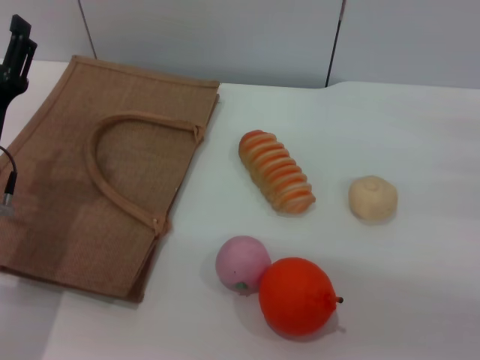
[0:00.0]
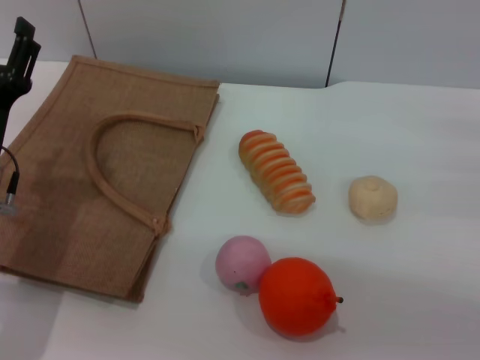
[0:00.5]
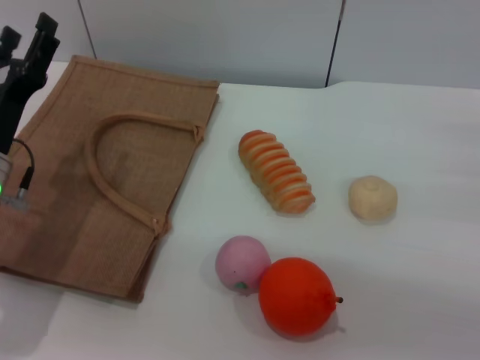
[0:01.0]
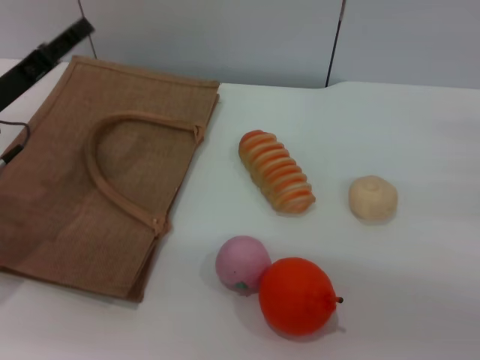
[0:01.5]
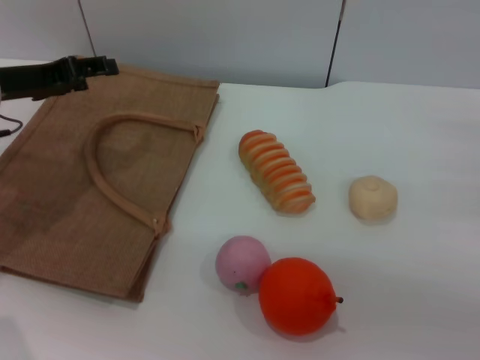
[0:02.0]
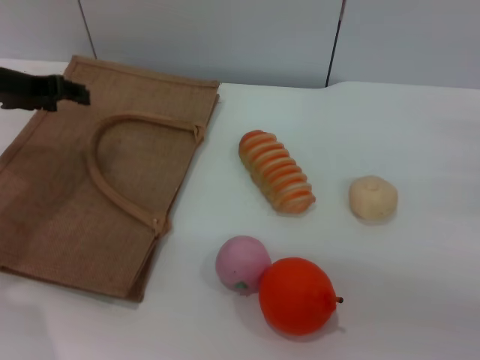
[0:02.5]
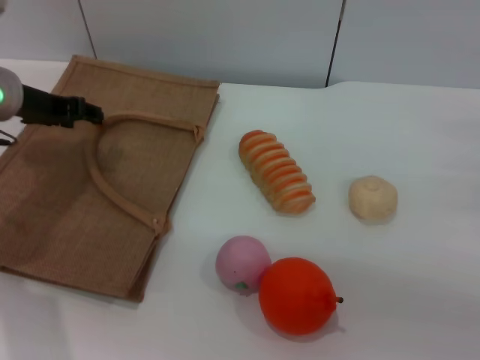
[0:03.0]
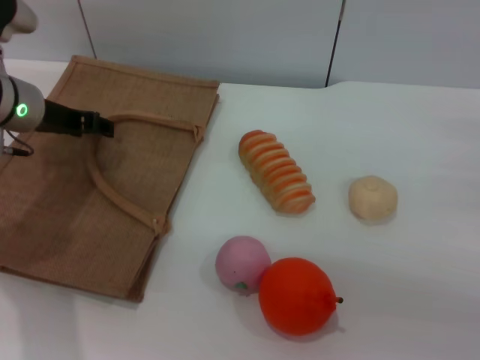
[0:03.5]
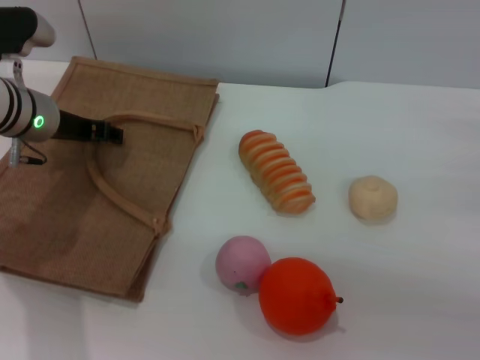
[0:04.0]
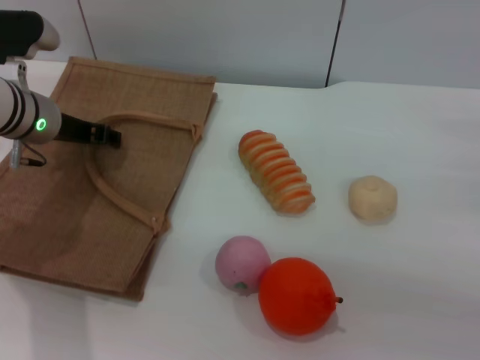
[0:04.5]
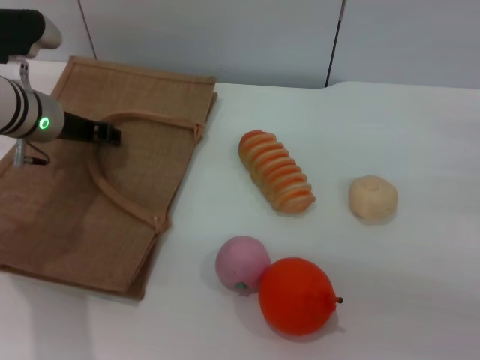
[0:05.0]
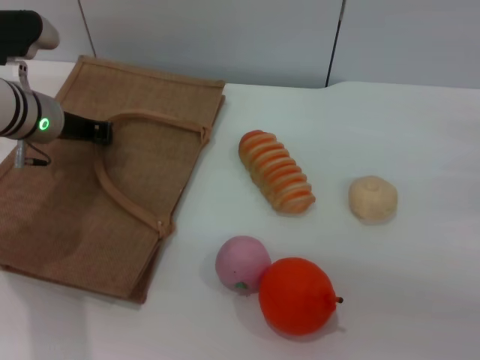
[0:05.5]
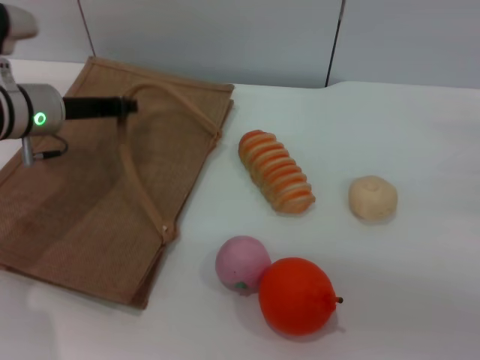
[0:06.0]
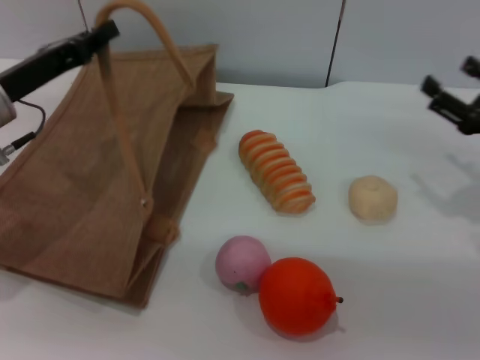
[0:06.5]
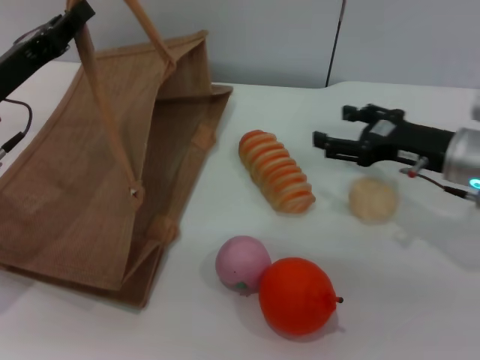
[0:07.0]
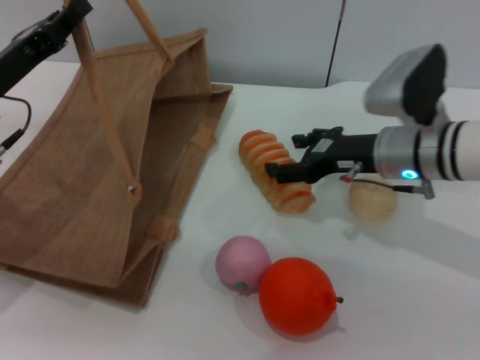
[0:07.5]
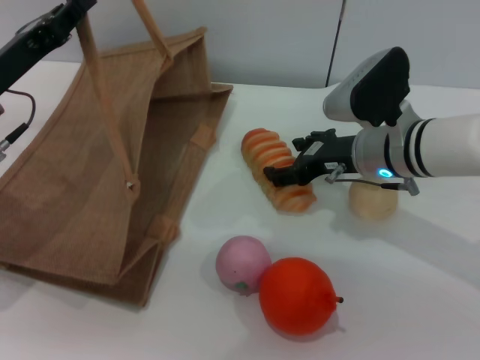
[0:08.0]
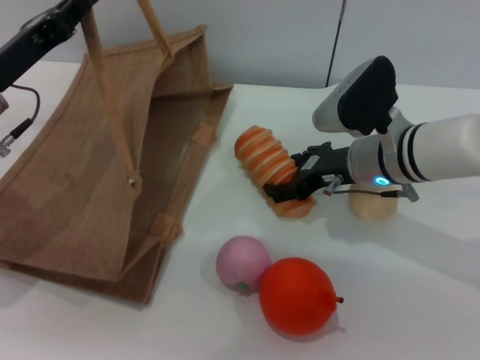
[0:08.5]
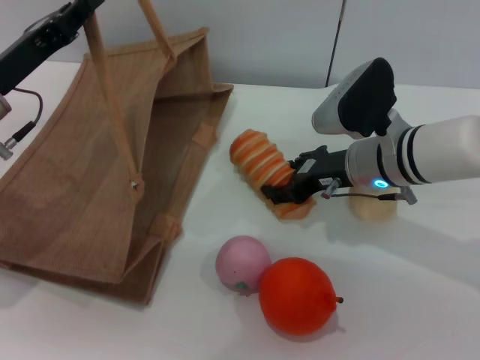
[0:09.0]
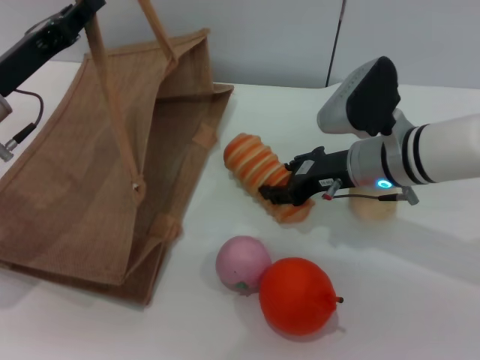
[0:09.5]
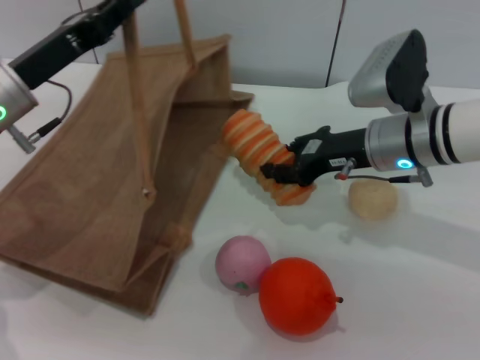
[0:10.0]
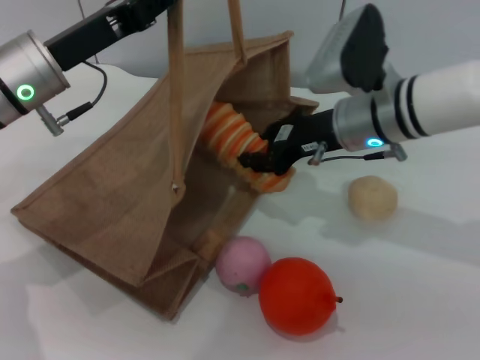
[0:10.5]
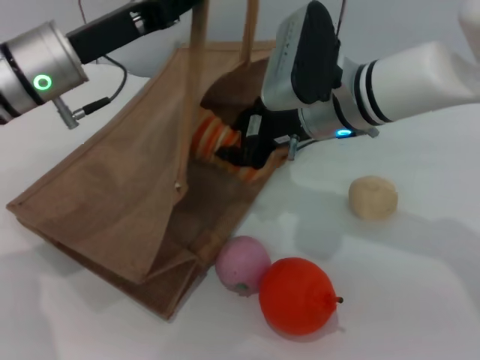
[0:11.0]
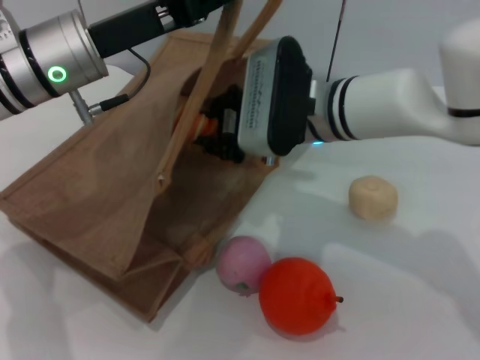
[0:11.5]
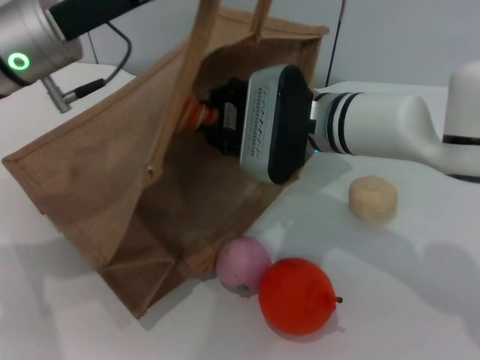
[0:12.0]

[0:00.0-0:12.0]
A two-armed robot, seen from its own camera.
Task of the whole recording: pick up the bread and egg yolk pastry from the table and place it in the brown handbag.
Step, 0:00.0 to 0:06.5: Lift the woven bag with the left gripper to open it.
Step, 0:07.0 to 0:09.5: Pick up the bread with the right gripper.
0:00.0 to 0:02.0: The left gripper travels forward and upward by roughly 15 cm.
0:02.0 to 0:04.0: The left gripper shifts by about 5 cm.
0:04.0 to 0:06.0: The left gripper closes its fingers.
0:06.0 to 0:08.0: The left gripper shifts about 5 cm backward. The right gripper goes about 25 cm to the left and forward.
0:08.0 to 0:10.0: The right gripper closes its fingers.
0:10.0 to 0:12.0: The left gripper travels upward and to the right by about 10 cm; the right gripper goes about 10 cm to the left.

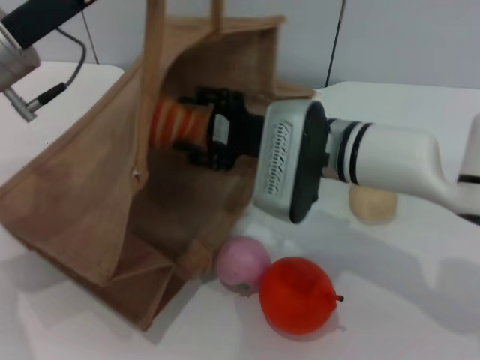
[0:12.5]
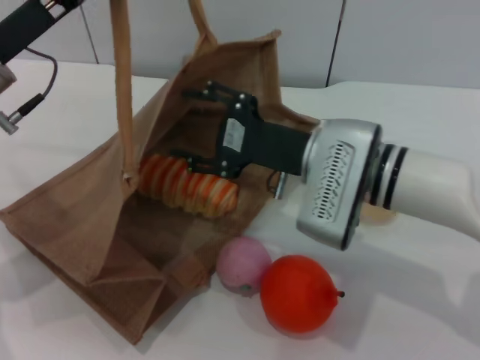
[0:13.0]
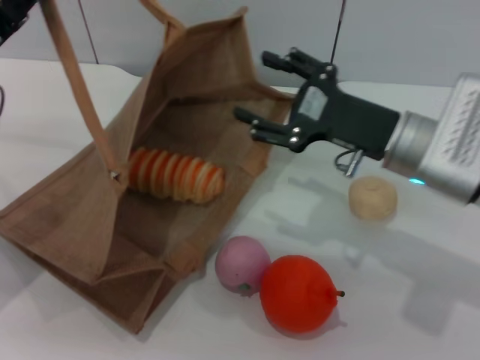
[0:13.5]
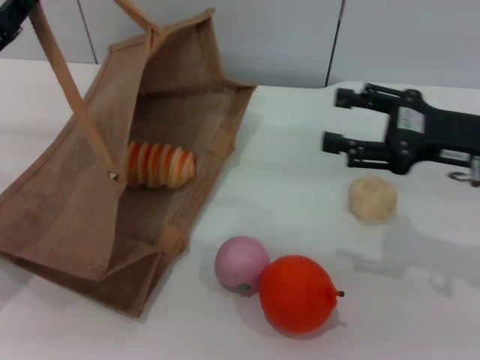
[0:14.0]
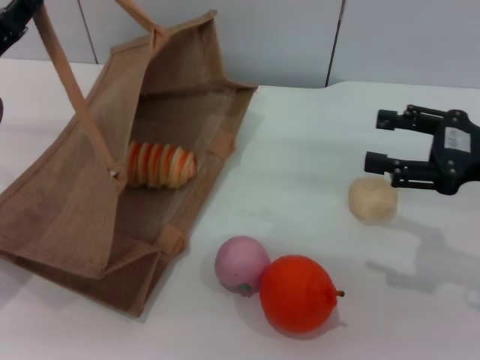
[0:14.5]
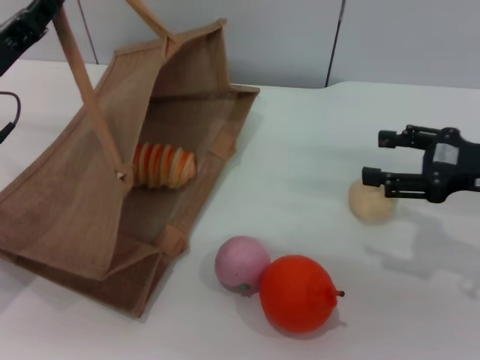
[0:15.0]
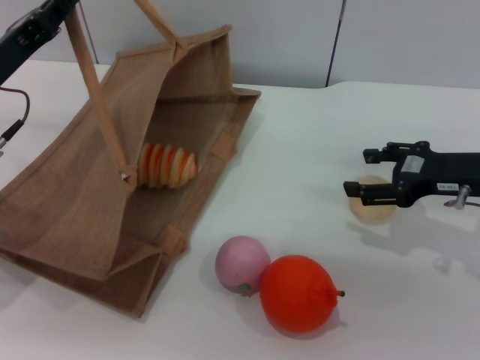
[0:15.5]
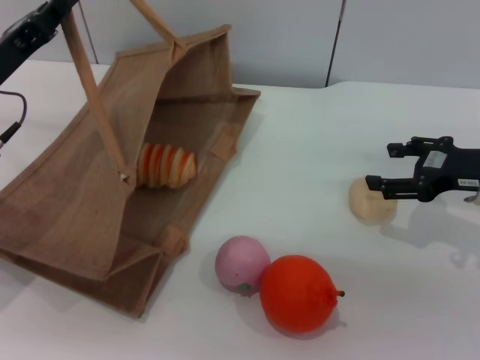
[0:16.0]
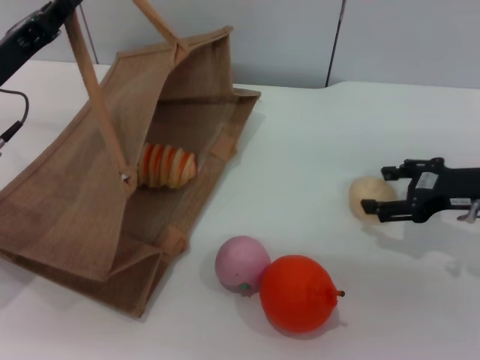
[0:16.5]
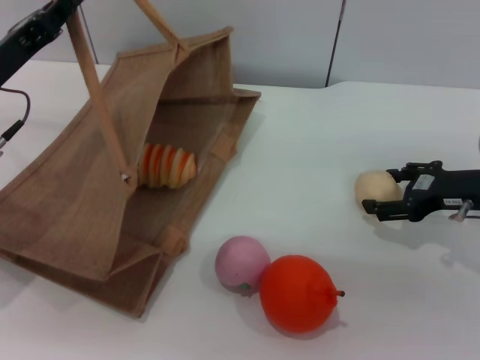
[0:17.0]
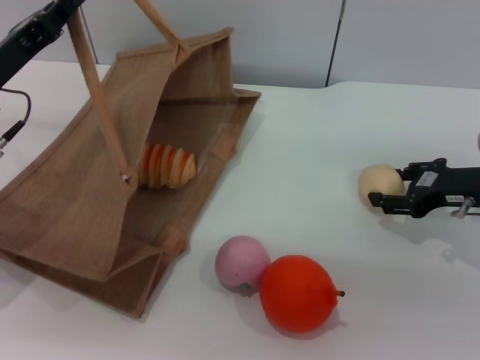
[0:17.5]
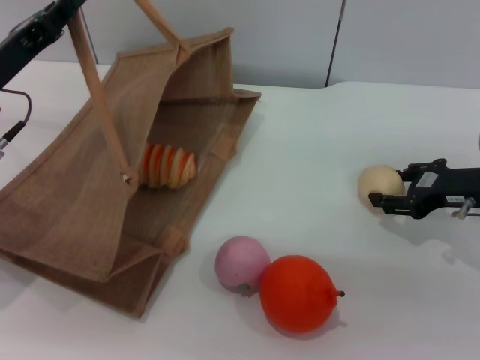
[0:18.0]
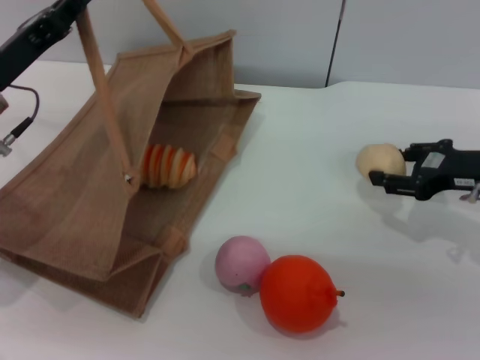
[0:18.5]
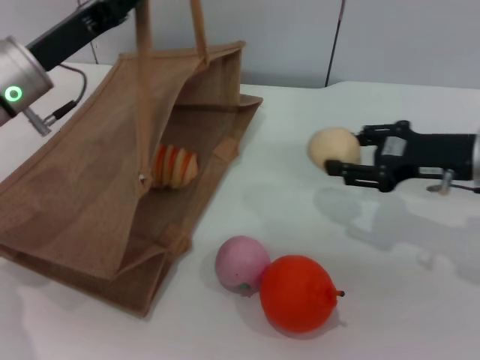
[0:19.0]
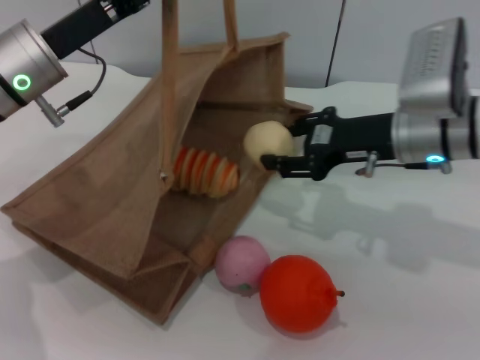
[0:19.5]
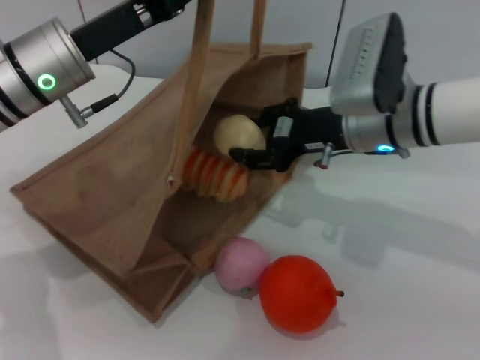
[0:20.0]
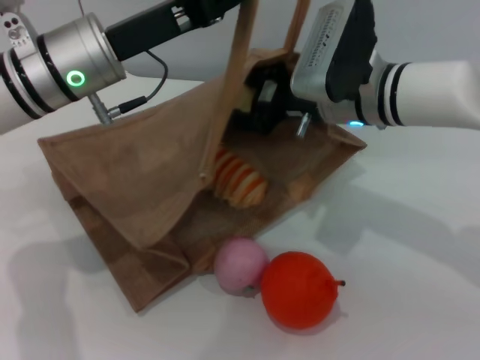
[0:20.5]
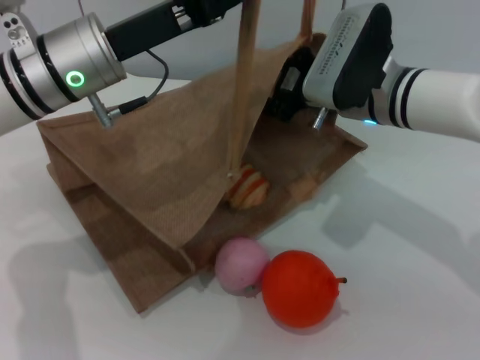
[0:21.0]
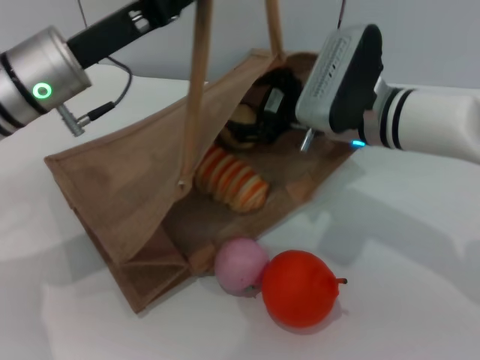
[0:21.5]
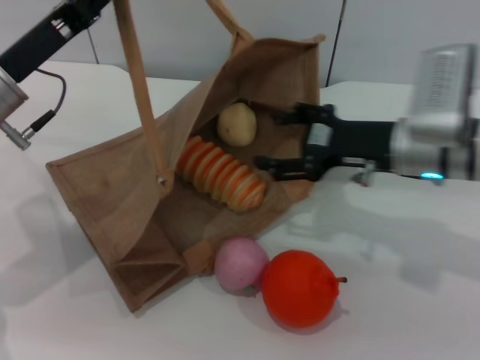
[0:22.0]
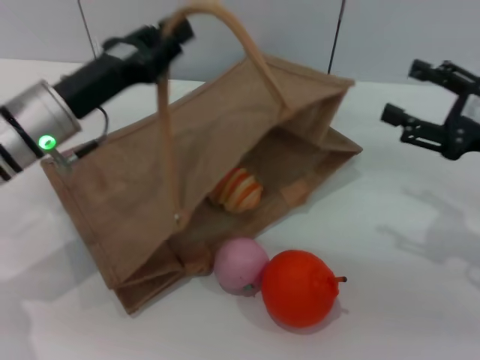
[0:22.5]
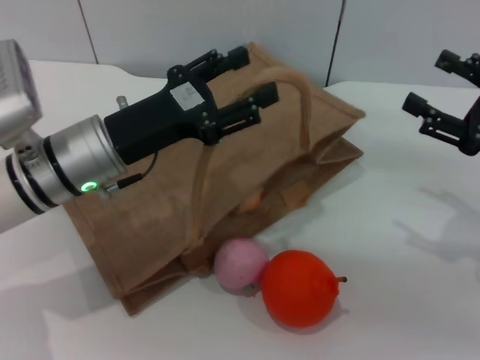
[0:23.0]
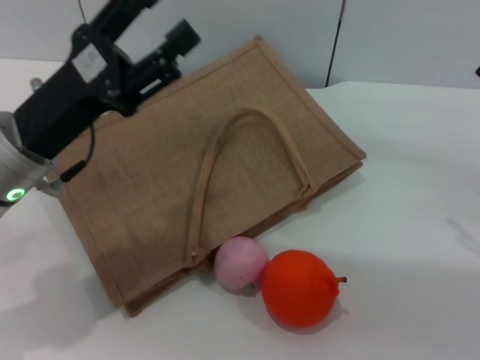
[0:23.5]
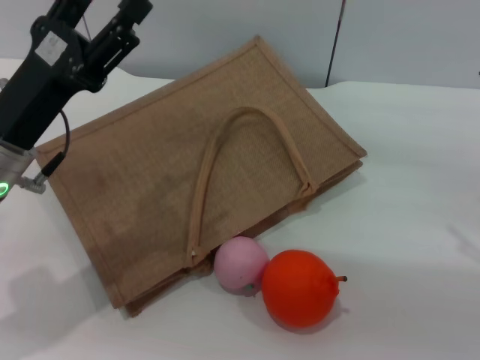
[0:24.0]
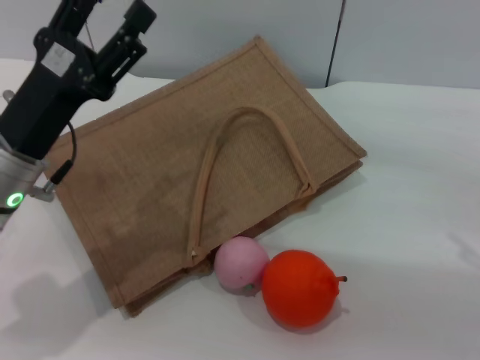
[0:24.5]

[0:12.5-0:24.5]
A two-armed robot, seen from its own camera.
Task of the whole recording: pick up the bread and egg yolk pastry from the table and place it in the brown handbag.
Step, 0:13.0 to 0:18.5: Pick up the egg yolk pastry with the right gripper.
Step, 0:19.0 to 0:21.5: Place the egg yolk pastry into the woven bag with the right gripper.
Step, 0:22.0 to 0:23.0: Lower the woven bag with the left gripper to close it.
0:12.5 to 0:14.5: The right gripper is displaced to the right by roughly 25 cm, and opens. The left gripper goes some 10 cm to the left and downward.
0:14.5 to 0:16.5: The right gripper heads downward, covering about 5 cm.
0:16.5 to 0:18.5: The right gripper closes.
0:18.5 to 0:20.5: The right gripper heads to the left, covering about 20 cm; the left gripper goes about 10 cm to the right.
0:20.5 to 0:22.5: The left gripper moves downward, about 5 cm; the right gripper goes approximately 20 cm to the right and backward, and opens.
0:22.5 to 0:24.5: The left gripper is displaced backward by approximately 5 cm, and opens, while the right gripper changes place by roughly 5 cm.
